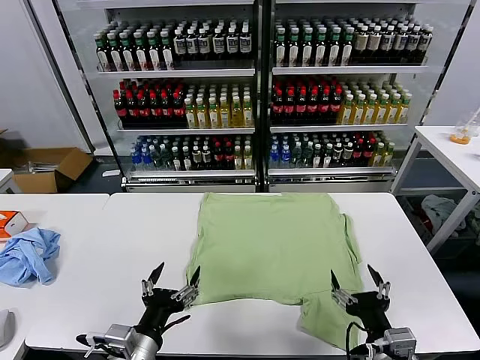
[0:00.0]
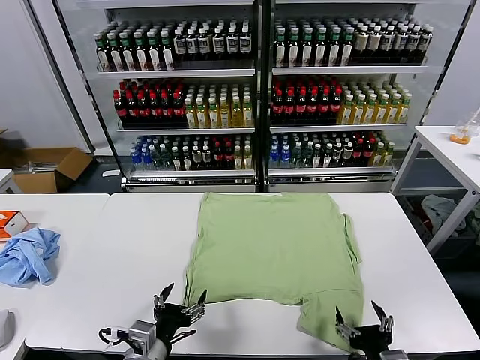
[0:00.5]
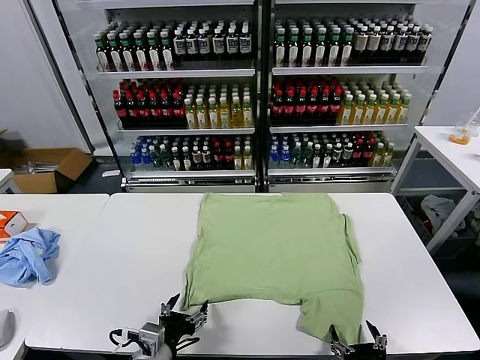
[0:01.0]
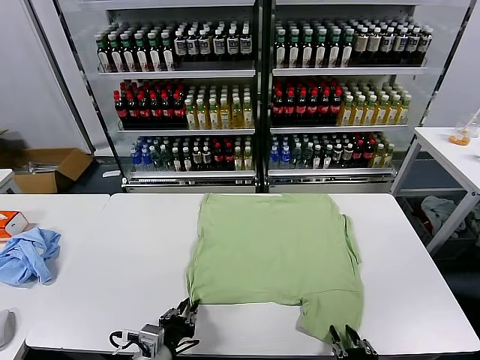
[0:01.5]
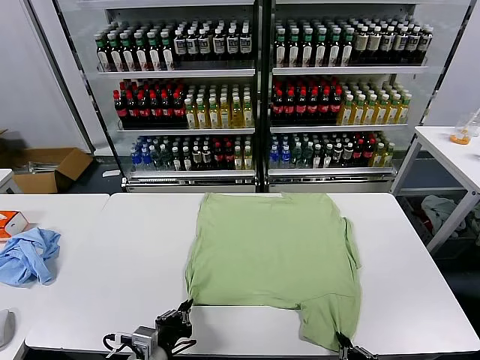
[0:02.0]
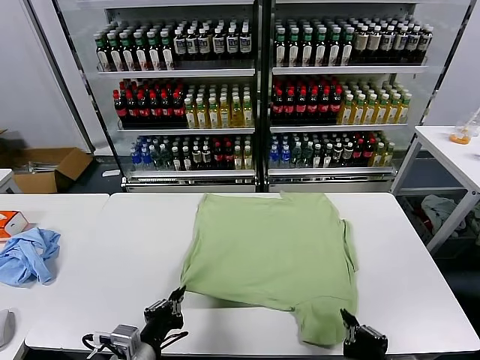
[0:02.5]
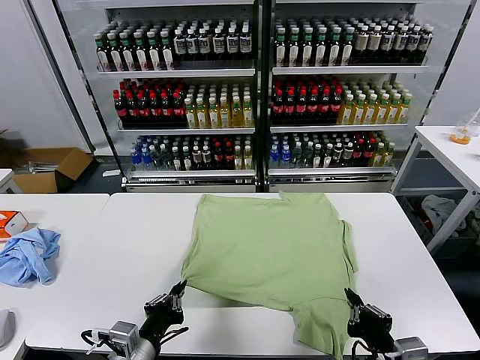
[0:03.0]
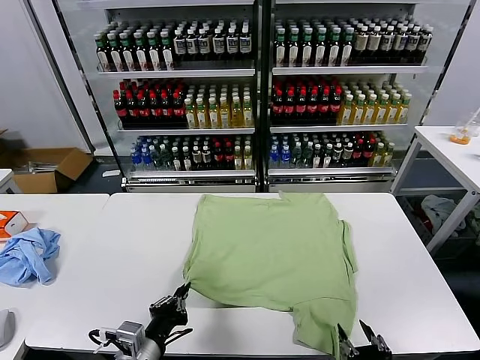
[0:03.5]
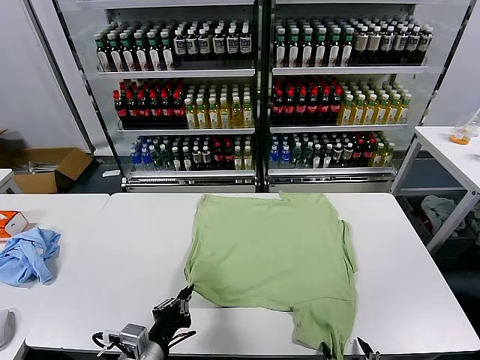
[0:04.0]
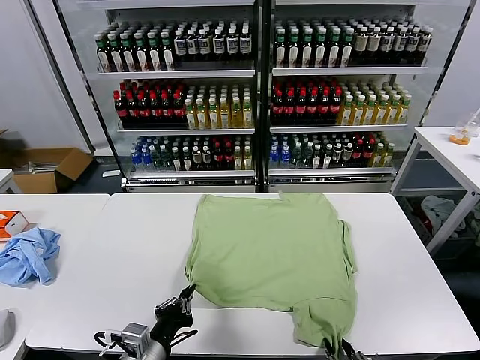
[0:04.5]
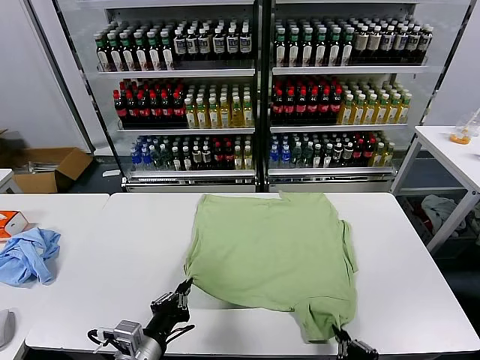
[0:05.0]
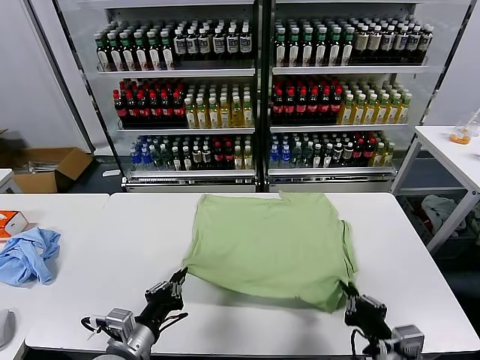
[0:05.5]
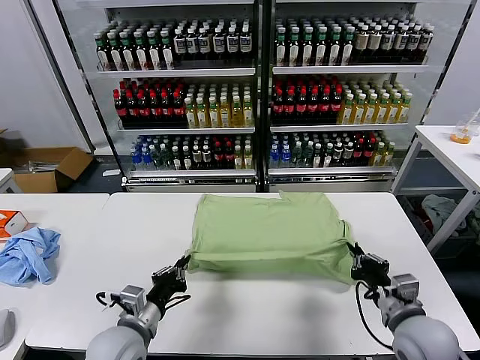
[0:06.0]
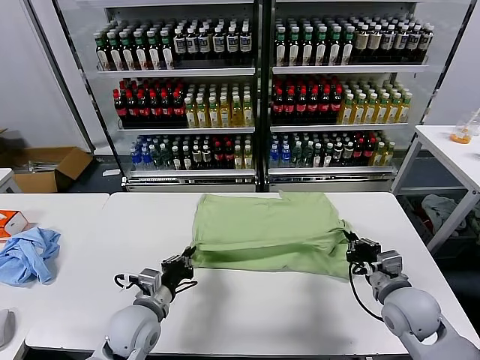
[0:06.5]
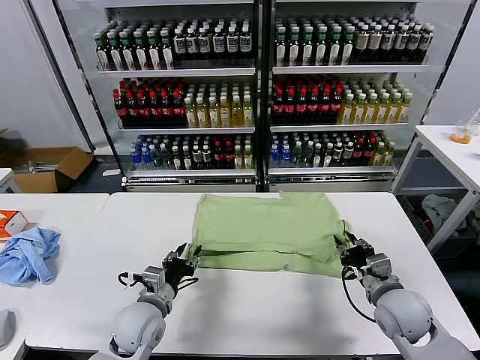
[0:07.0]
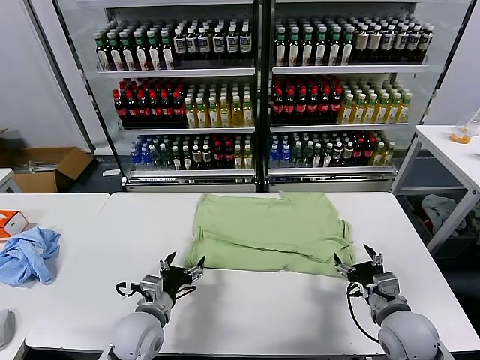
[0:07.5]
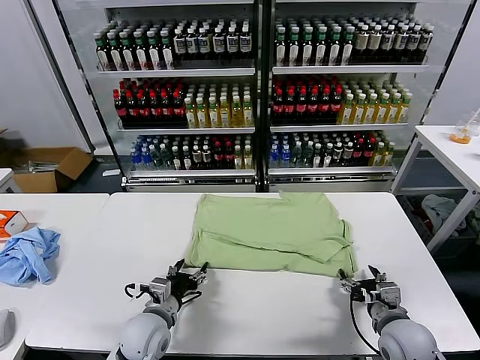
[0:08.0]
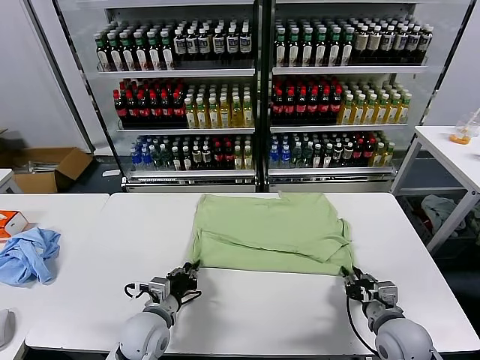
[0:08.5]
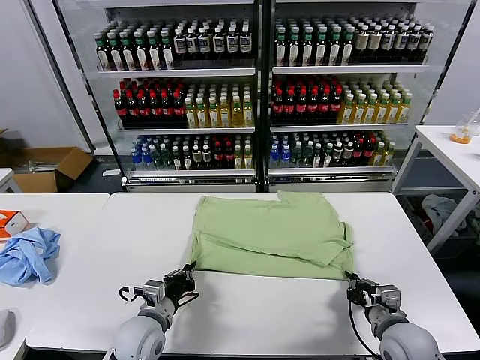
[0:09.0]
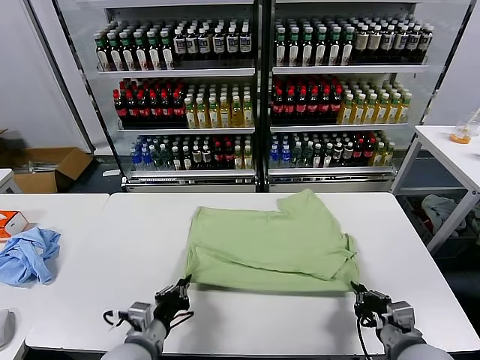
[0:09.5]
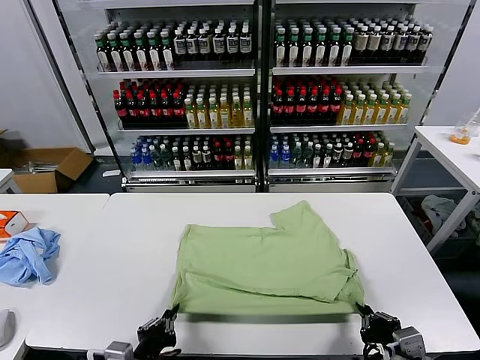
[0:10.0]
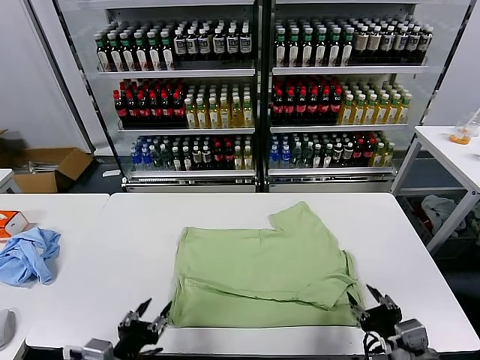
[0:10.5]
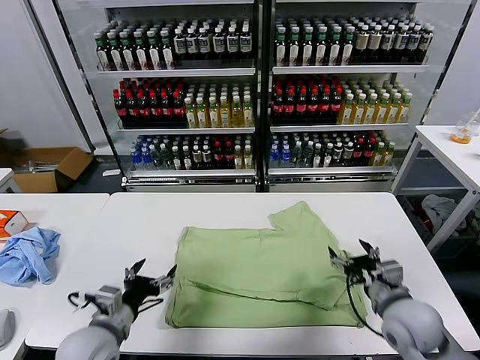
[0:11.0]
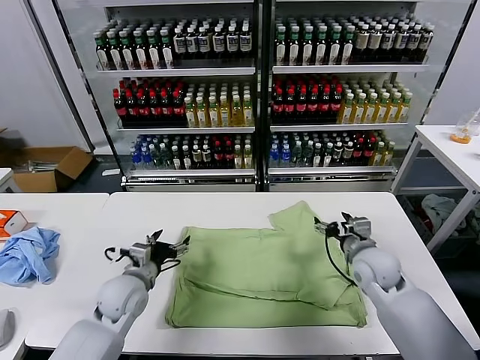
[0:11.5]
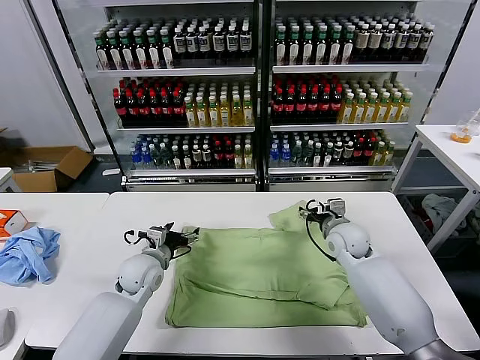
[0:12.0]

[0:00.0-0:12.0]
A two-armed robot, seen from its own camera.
Task of the whole recording: fold and organize the clothes.
Step, 0:00.0 to 0:01.5: use both grippers simultaneously to clamp the lower edge of the clothing fabric.
Step, 0:02.0 to 0:07.0: use both grippers to drag the lower edge of the fabric forward and fold it over the upper edge.
Step, 0:07.5 to 0:10.0: Drag the clothes downward with both gripper.
0:02.0 to 0:04.0: The right gripper opens its fingers.
0:04.0 to 0:06.0: The right gripper heads forward and to the right, covering roughly 20 cm, and closes its fingers; the left gripper heads forward, covering about 10 cm.
0:06.0 to 0:08.0: Both grippers travel together downward, approximately 5 cm. The right gripper opens its fingers. The left gripper opens its fingers.
0:08.0 to 0:10.0: The left gripper moves backward, about 15 cm, and closes its fingers; the right gripper is displaced backward and upward by about 15 cm, and closes up.
0:10.0 to 0:12.0: Both grippers move forward, about 30 cm. The right gripper opens. Meanwhile the left gripper opens its fingers.

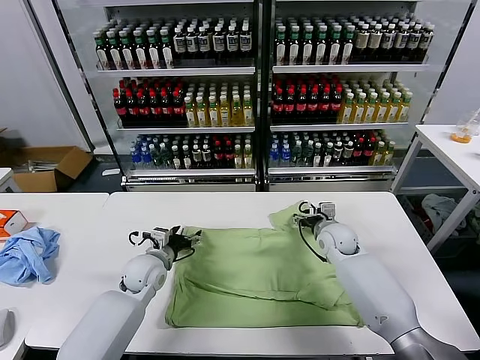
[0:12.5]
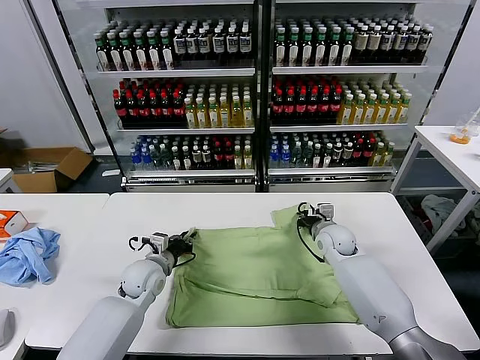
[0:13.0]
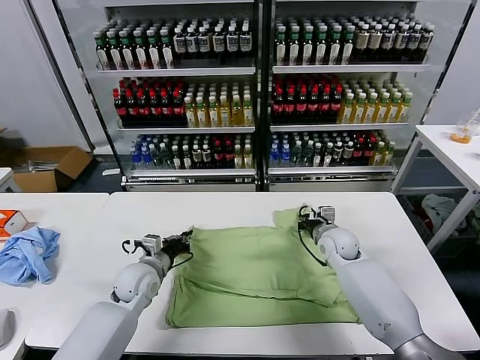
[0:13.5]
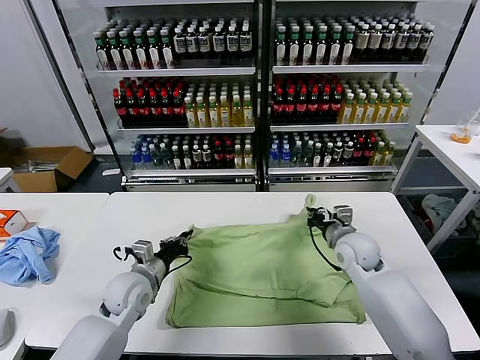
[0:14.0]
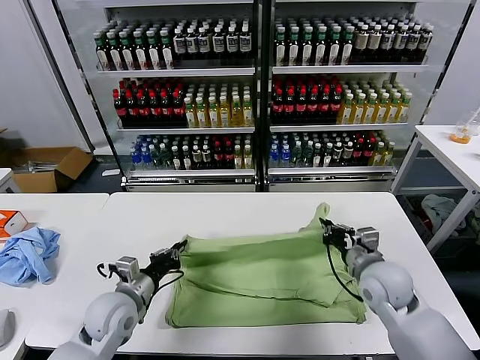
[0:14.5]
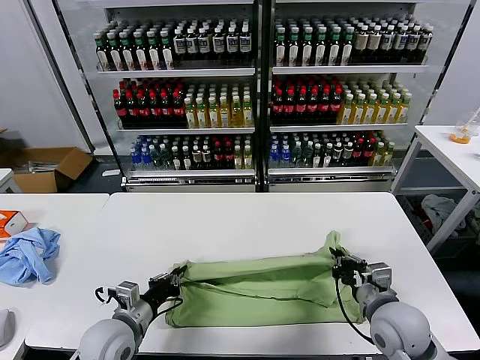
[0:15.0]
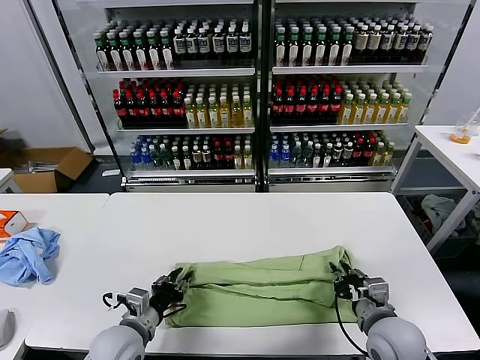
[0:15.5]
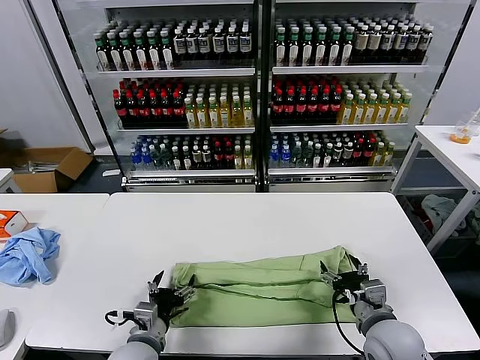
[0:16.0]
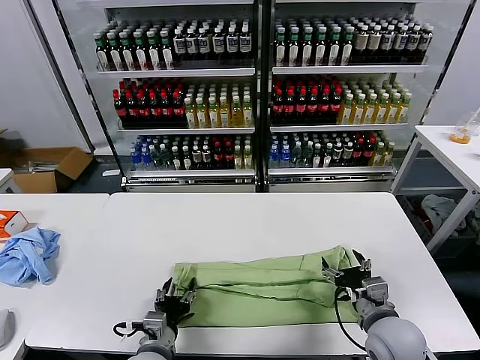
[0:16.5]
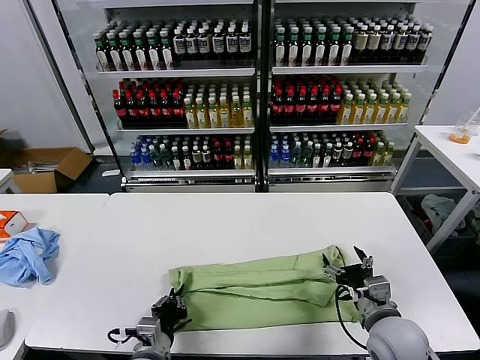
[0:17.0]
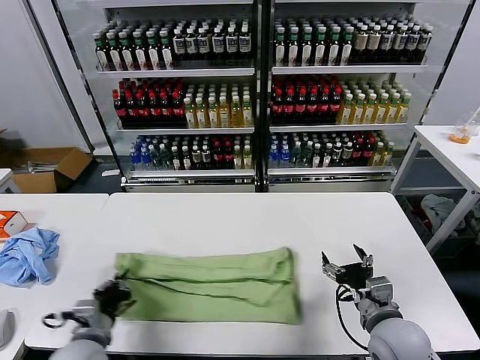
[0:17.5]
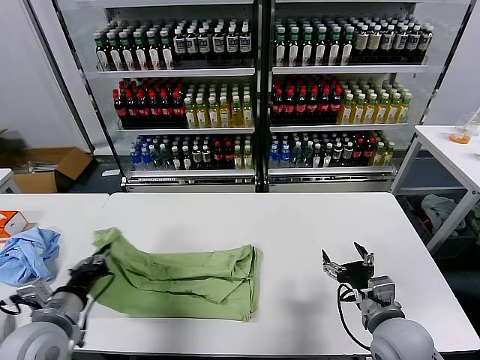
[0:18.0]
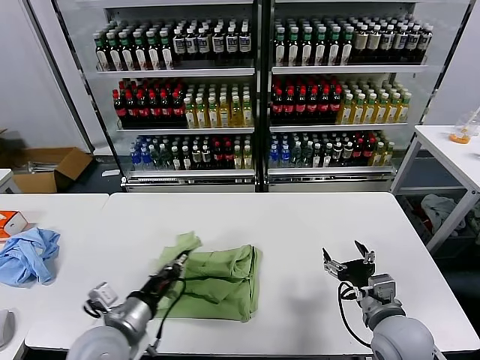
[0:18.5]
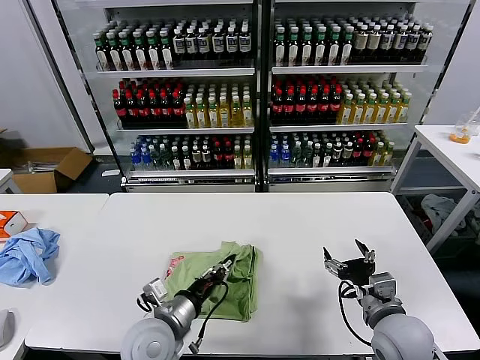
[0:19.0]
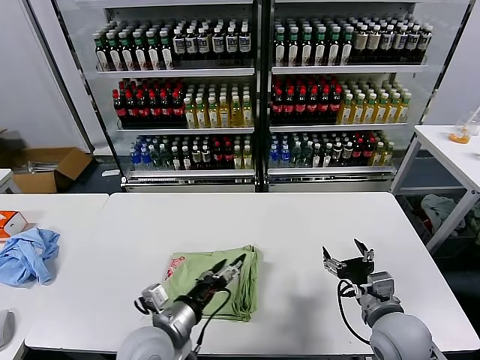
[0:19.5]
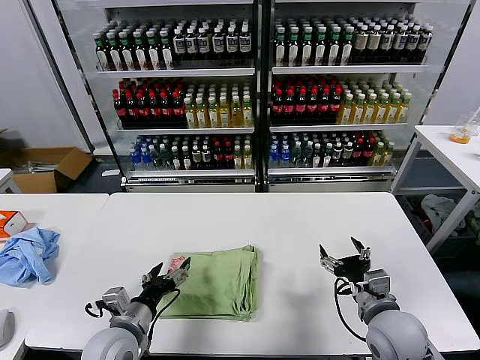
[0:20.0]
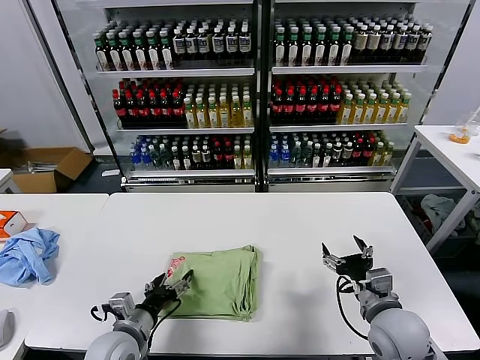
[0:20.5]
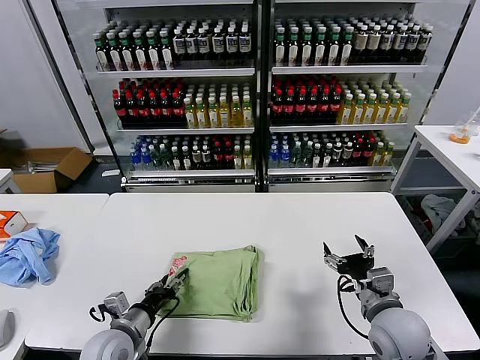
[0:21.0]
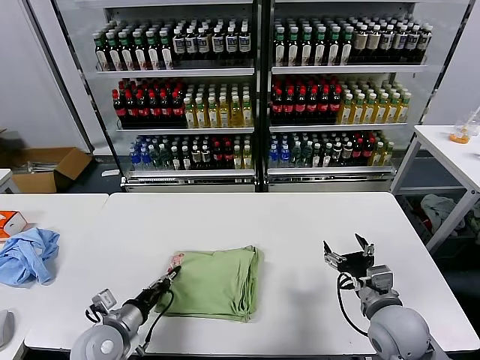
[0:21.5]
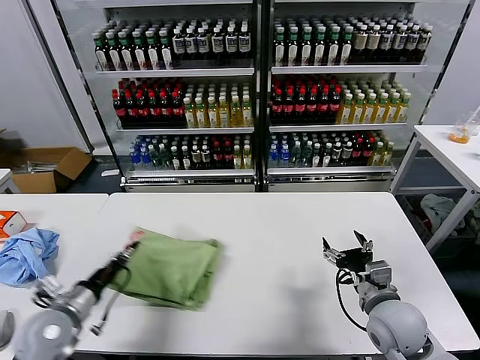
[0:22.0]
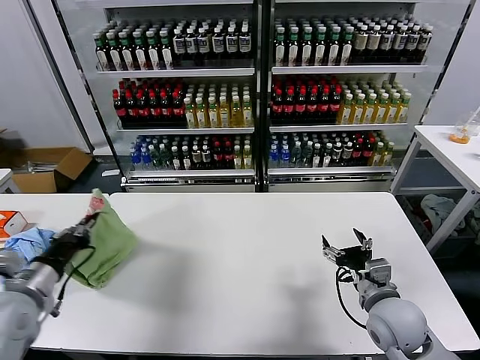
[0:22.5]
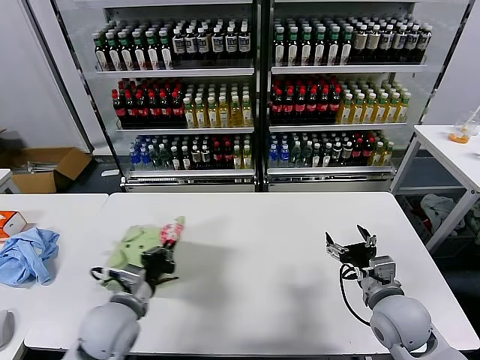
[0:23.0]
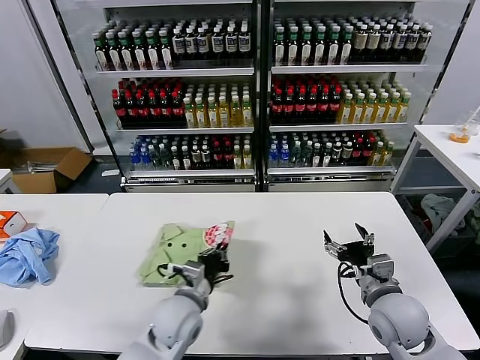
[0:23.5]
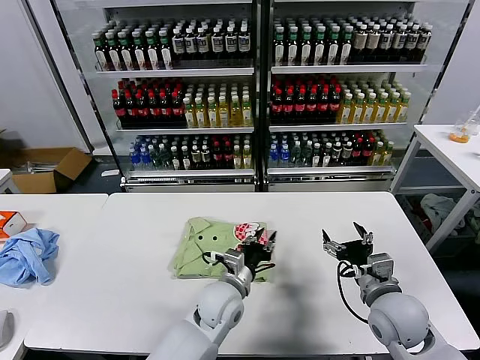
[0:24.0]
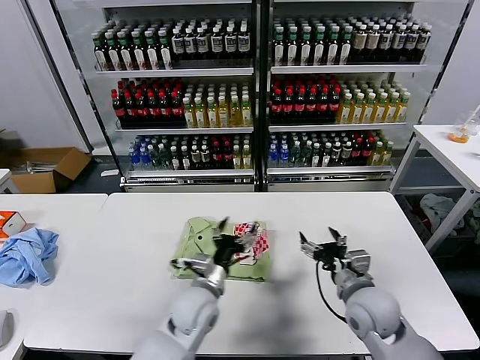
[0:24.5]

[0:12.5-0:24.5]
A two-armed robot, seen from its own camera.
Task of the whole recording: fold and organize the clothes.
Step, 0:13.5 to 0:15.5: use both grippers to drag the upper edge of the fabric backward and fold it over the lower edge.
Step, 0:16.0 to 0:16.5: use the left gripper to clamp the left edge of the fabric.
Step, 0:17.0 to 0:19.0: use the left gripper to drag the left edge of the fabric to the left and folds it over the right edge.
Step, 0:19.5 to 0:24.0: Flip the folded clothes over with left gripper.
0:12.5 to 0:14.5: The right gripper travels backward by roughly 15 cm, and closes its fingers; the left gripper is displaced backward by about 10 cm, and closes up.
0:14.5 to 0:16.5: The left gripper moves backward, to the right and downward, approximately 15 cm, and opens up. The right gripper travels backward by roughly 10 cm, and opens up.
0:16.5 to 0:18.5: The left gripper shifts some 10 cm upward and to the left, and closes.
0:18.5 to 0:20.5: The left gripper moves downward, roughly 10 cm, reaches about 10 cm to the right, then returns, and opens up.
0:20.5 to 0:22.5: The left gripper travels to the left and upward by roughly 20 cm, and closes its fingers.
0:22.5 to 0:24.5: The left gripper travels to the right by approximately 30 cm, and opens up.

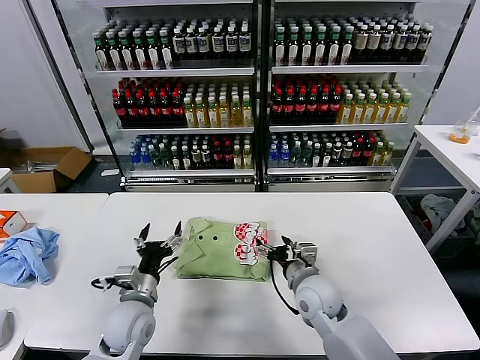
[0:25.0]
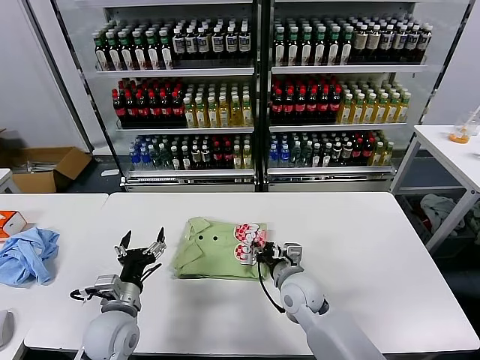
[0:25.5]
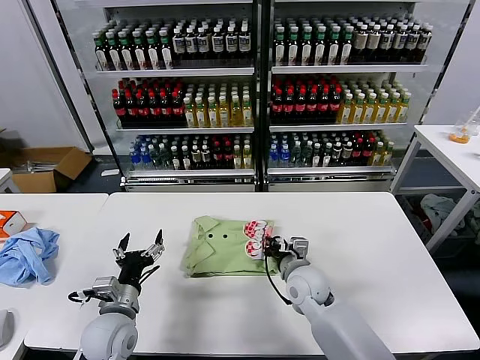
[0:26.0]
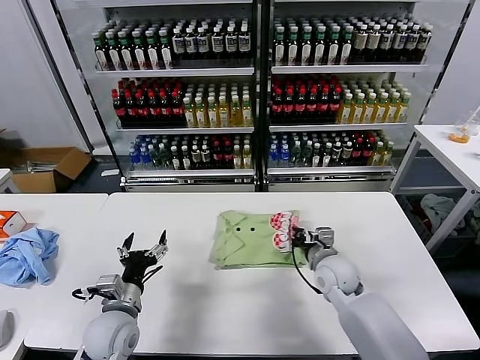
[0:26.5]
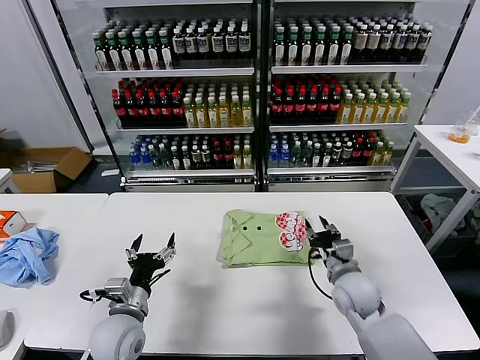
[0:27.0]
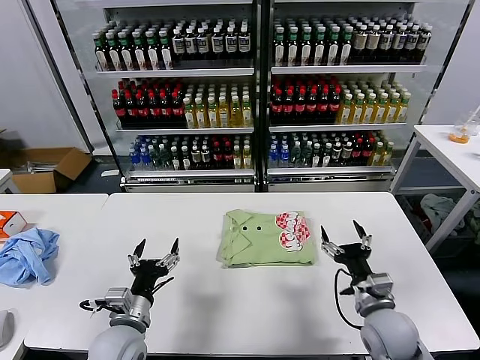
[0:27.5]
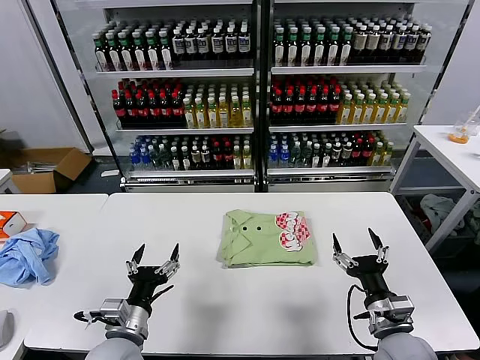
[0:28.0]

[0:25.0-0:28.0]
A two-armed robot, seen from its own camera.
Task of the whole recording: fold and organize the clothes.
Step, 0:25.0 to 0:26.5: Drag the clothes to the center of the table.
0:25.0 to 0:26.5: The right gripper goes roughly 5 cm forward, and closes up.
0:26.5 to 0:28.0: The right gripper is displaced backward and to the right by approximately 20 cm, and opens up. Meanwhile the left gripper goes approximately 5 cm backward.
